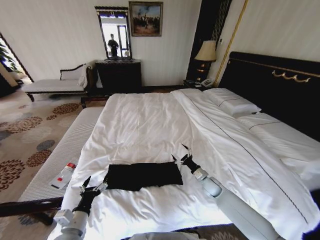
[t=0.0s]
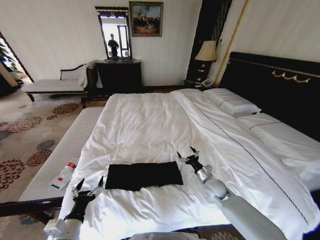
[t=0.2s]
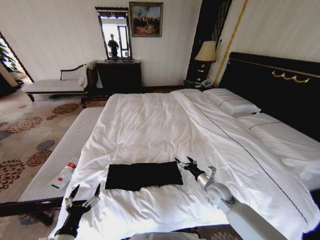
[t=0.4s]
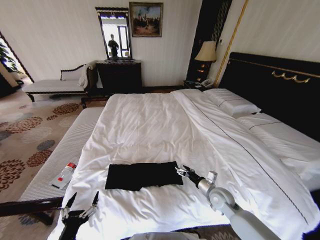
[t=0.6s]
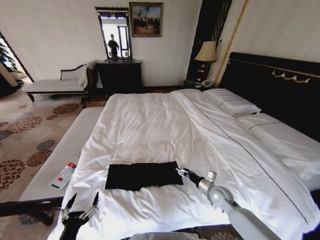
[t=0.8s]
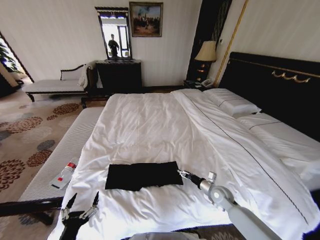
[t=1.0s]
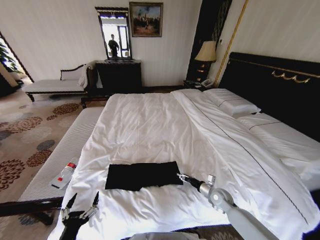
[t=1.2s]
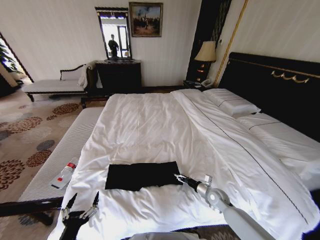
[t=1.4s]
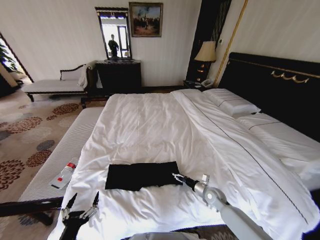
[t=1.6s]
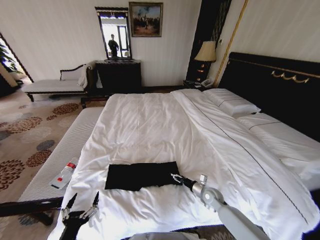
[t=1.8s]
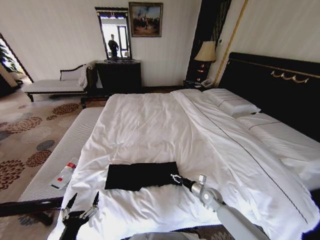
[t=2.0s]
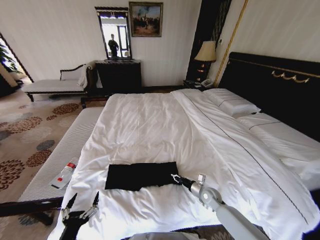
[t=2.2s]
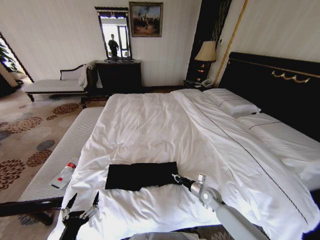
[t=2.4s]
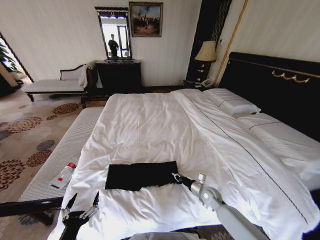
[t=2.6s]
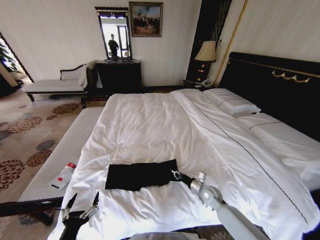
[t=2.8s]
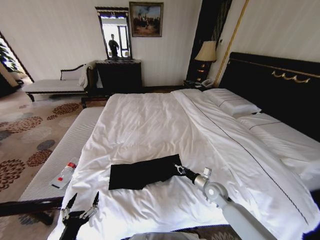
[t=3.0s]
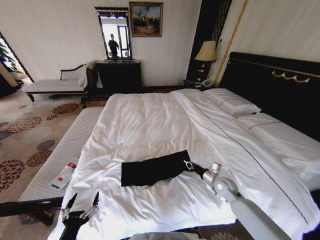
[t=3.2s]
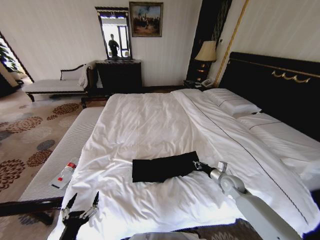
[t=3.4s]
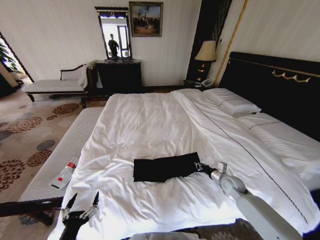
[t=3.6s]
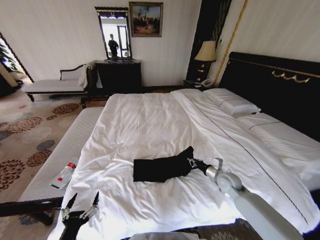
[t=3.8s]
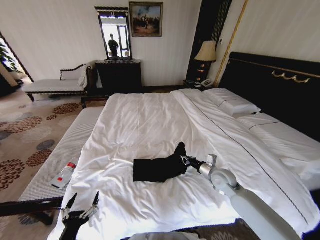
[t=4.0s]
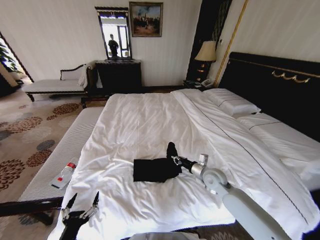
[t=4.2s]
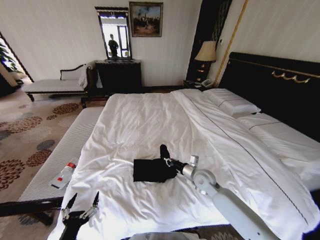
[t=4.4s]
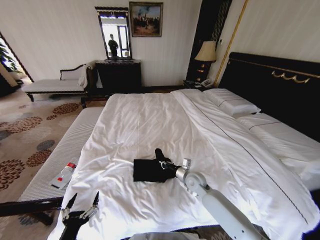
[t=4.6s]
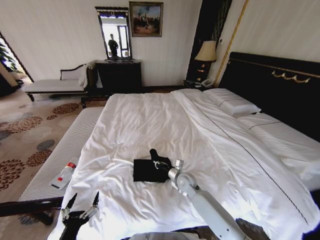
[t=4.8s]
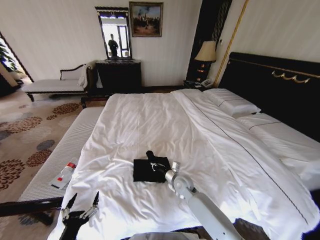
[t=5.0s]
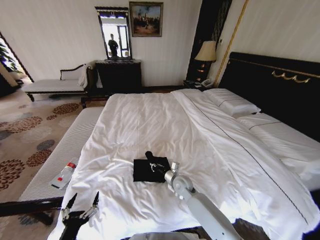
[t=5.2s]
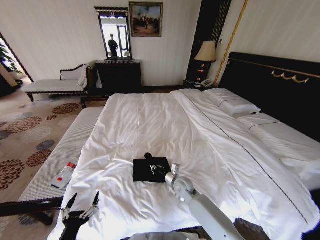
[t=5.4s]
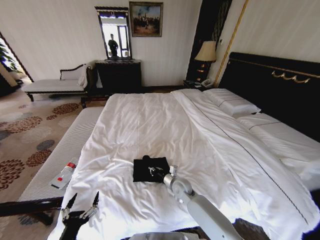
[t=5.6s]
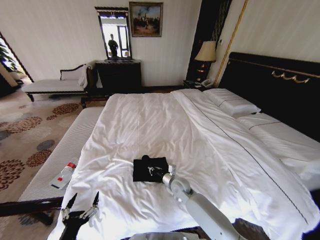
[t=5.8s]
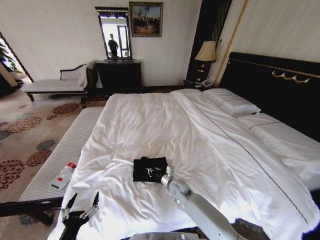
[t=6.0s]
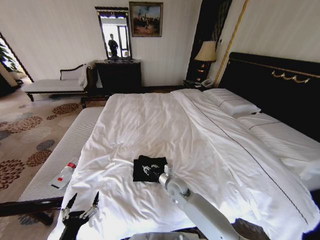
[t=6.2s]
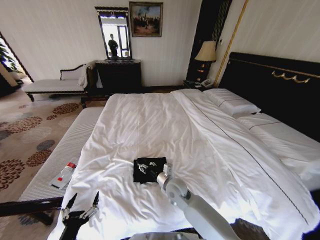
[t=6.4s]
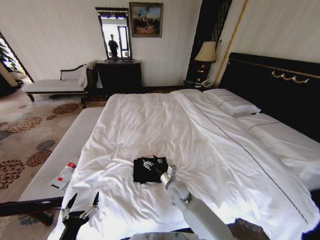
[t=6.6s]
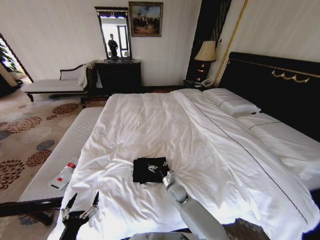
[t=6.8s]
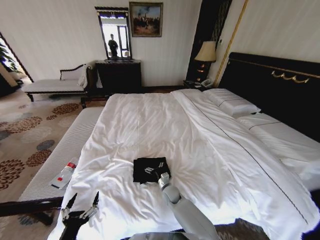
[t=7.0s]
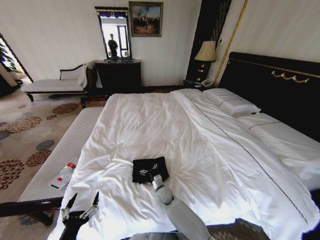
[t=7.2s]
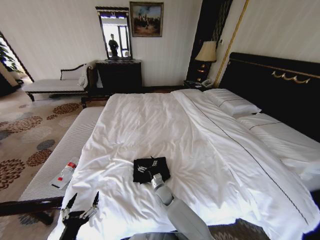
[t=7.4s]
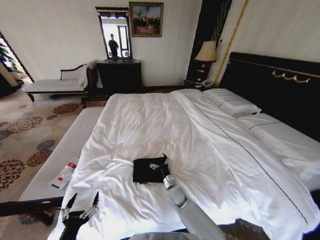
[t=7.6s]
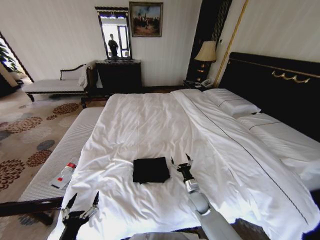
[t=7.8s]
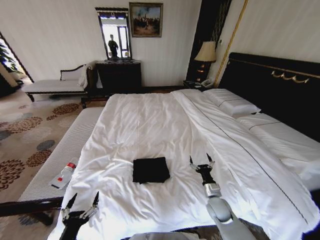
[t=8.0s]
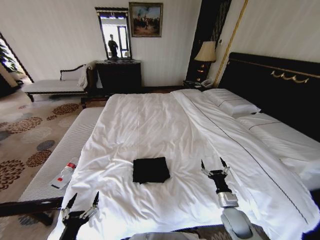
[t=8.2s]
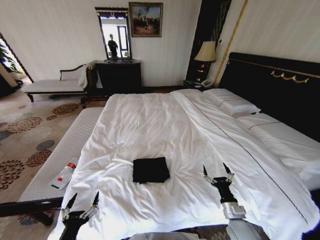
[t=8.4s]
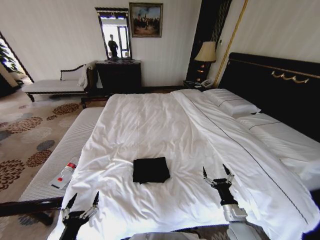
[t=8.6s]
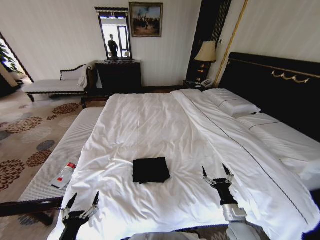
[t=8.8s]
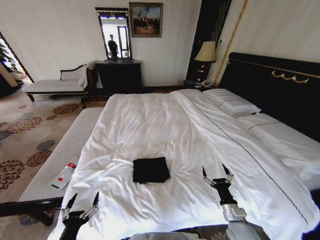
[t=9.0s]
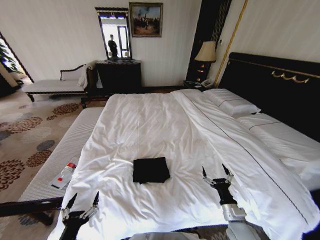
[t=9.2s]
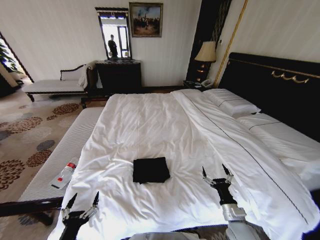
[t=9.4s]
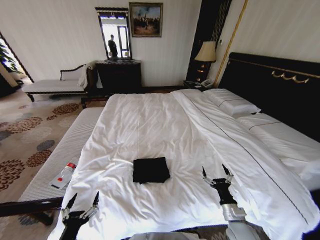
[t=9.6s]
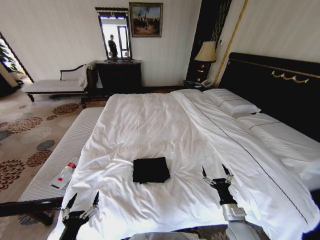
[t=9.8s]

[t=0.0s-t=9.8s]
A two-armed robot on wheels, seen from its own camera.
Task of the whole recording: Fold the clothes on the bed.
t=0.0s to t=1.4s: The left gripper goes approximately 10 cm backward, while the right gripper heads backward, covering approximately 5 cm, and reaches roughly 5 cm upward, then returns.
t=1.4s to t=2.8s: The right gripper closes.
t=2.8s to t=4.2s: The right gripper travels upward by roughly 10 cm, and reaches approximately 10 cm to the right, then returns.
t=4.2s to t=5.6s: The right gripper shifts roughly 15 cm to the left and downward.
t=5.6s to t=7.0s: The right gripper is displaced downward by approximately 10 cm, and opens its fingers.
t=7.0s to t=8.4s: The right gripper travels to the right and backward by roughly 30 cm.
t=8.4s to t=9.8s: Both grippers stay put.
